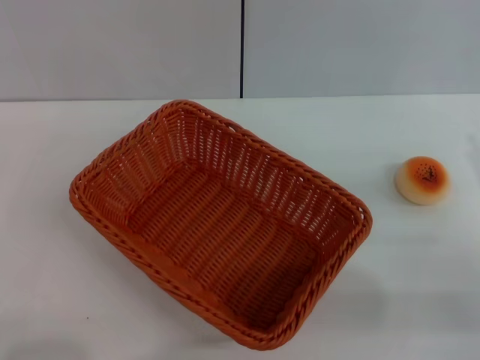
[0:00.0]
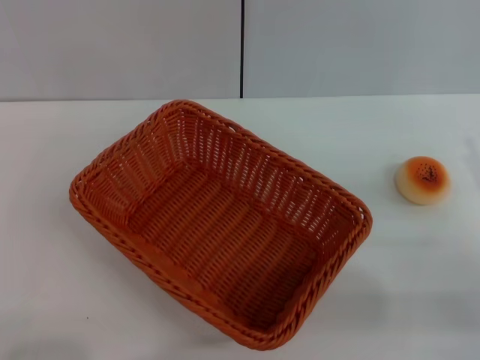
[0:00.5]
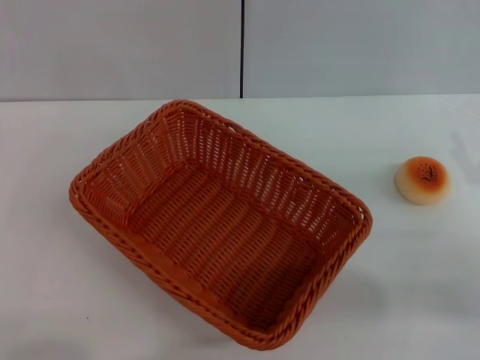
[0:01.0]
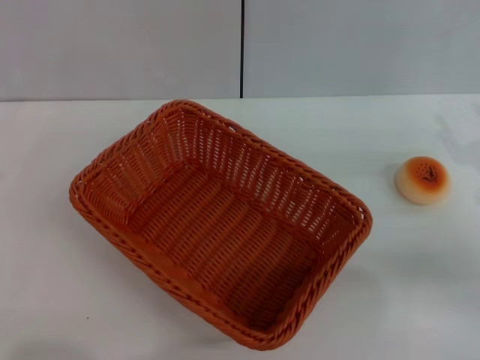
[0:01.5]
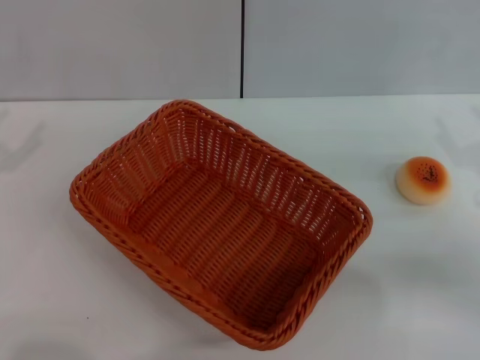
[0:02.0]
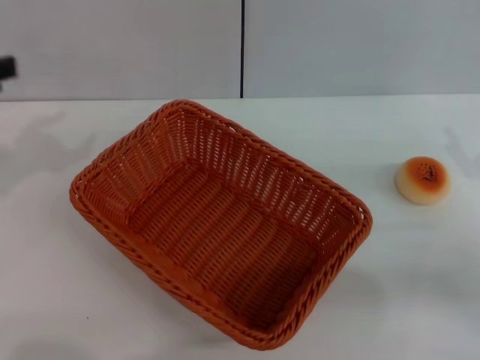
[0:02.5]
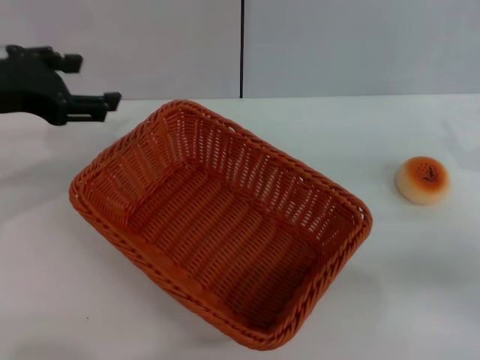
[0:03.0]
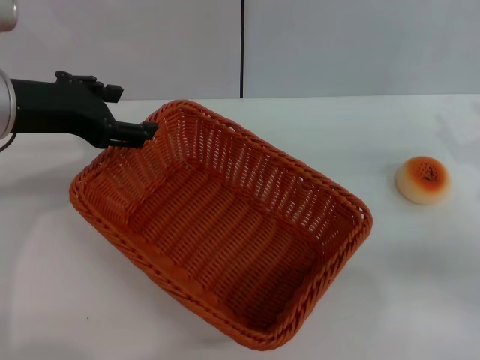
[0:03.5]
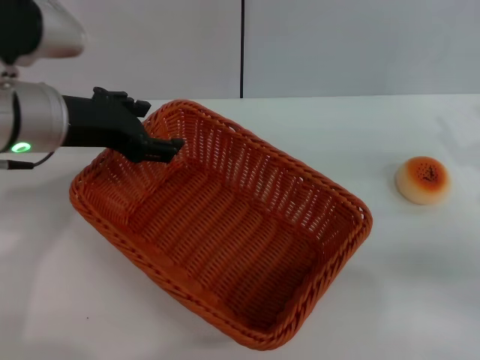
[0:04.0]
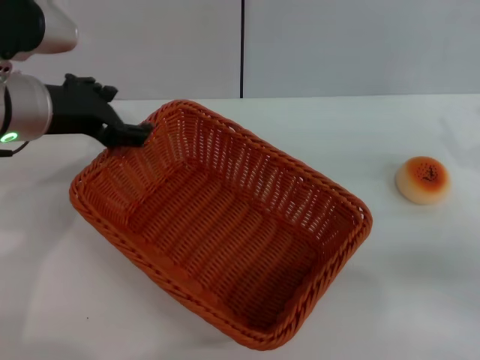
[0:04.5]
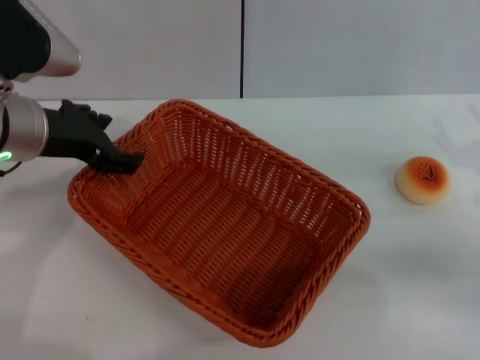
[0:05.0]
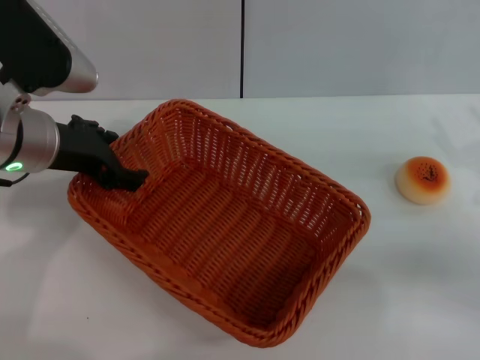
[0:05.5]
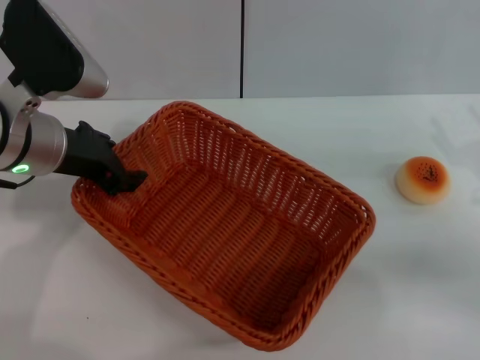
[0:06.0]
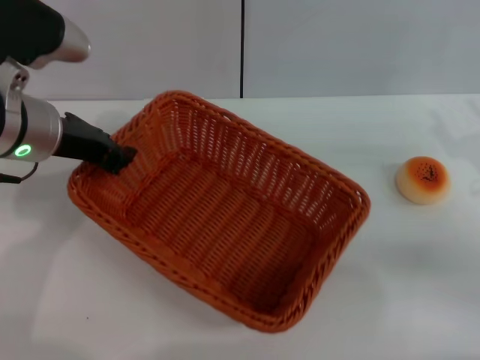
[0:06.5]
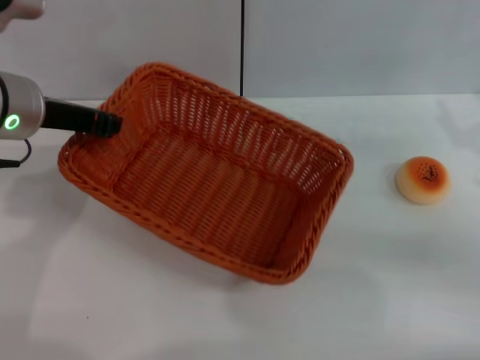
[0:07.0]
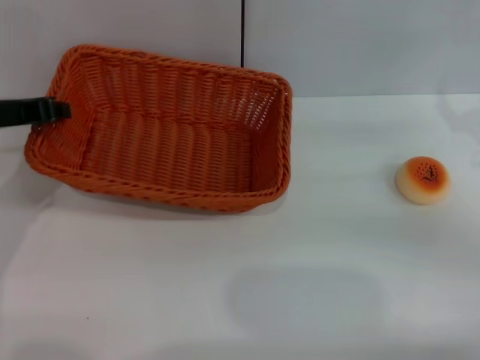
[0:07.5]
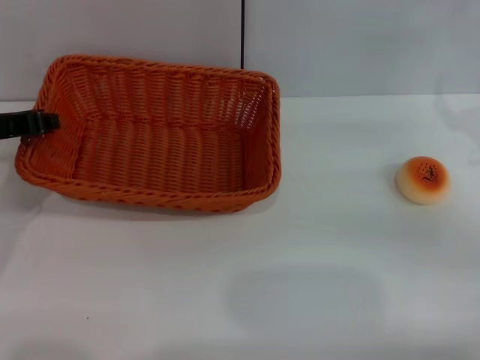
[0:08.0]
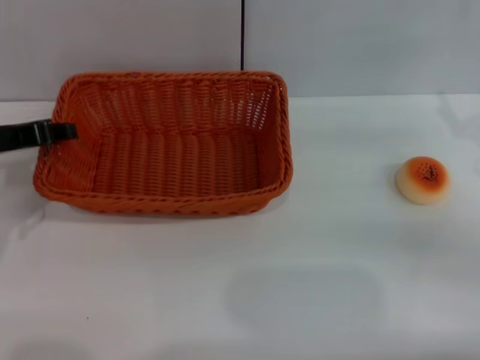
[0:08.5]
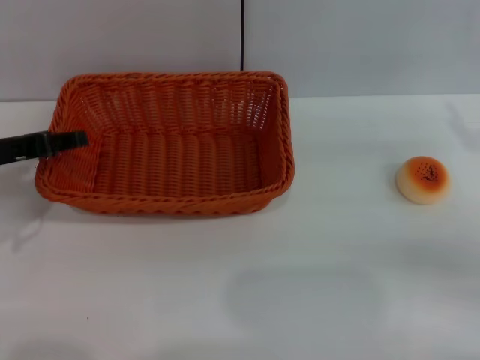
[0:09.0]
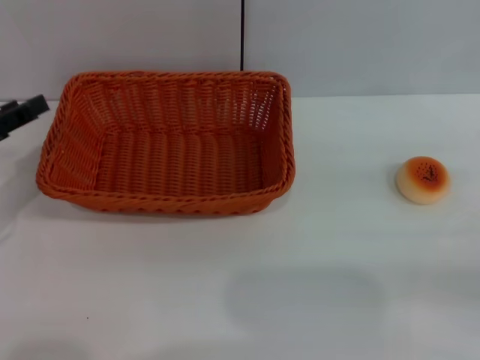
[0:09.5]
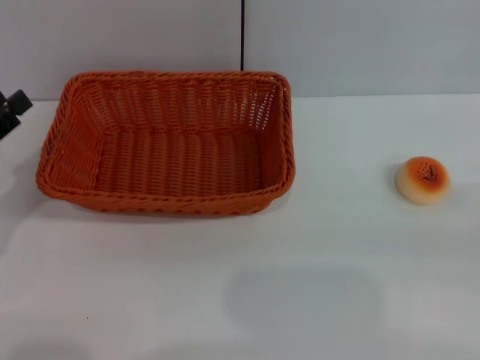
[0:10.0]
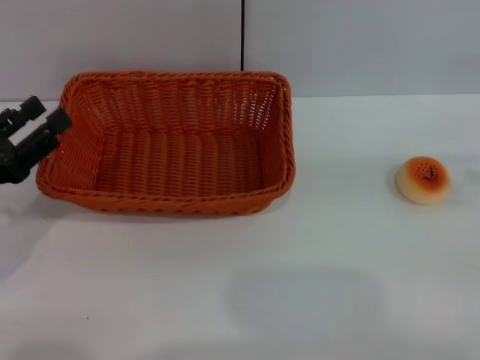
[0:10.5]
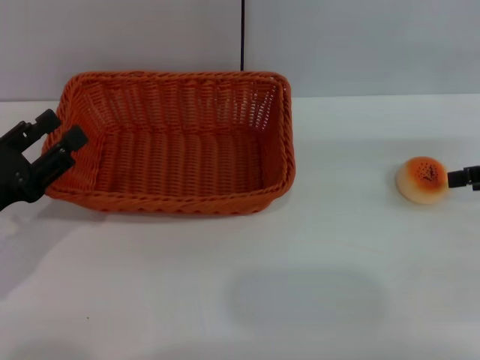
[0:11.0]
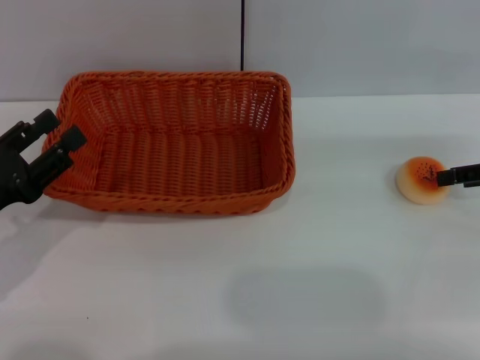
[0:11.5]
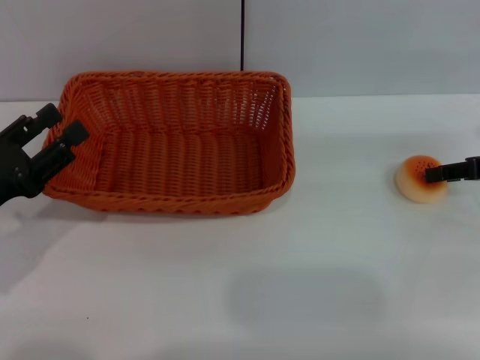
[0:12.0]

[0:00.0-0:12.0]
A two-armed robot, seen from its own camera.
Step, 0:00.0 to 0:09.0: Move the basket to the center of view with the left gripper.
0:02.0 to 0:04.0: The left gripper travels to the right and forward by roughly 20 cm.
0:04.0 to 0:06.0: The grippers stay close to where they were, moving slightly.
0:06.0 to 0:08.0: The right gripper changes place by approximately 5 cm; the left gripper is displaced to the left by approximately 10 cm, and closes.
0:08.0 to 0:10.0: The left gripper is displaced backward, to the left and downward by approximately 10 cm, and opens, while the right gripper is displaced to the right and backward by some 10 cm.
0:10.0 to 0:12.0: The right gripper is displaced forward and to the left by approximately 15 cm.

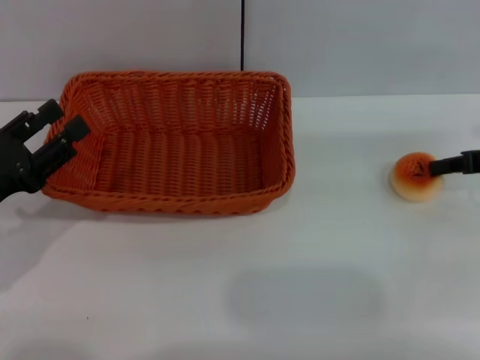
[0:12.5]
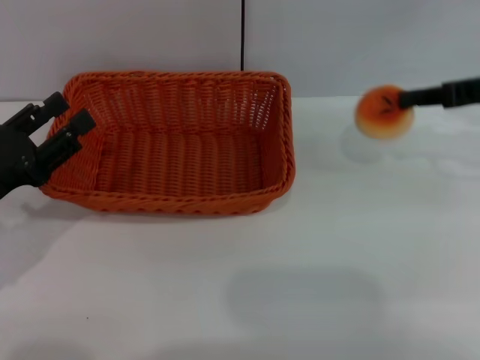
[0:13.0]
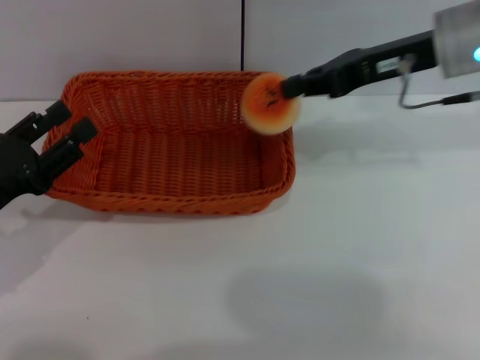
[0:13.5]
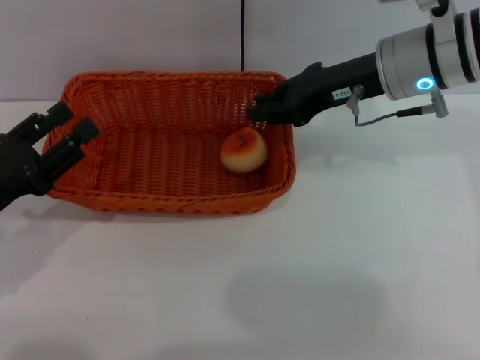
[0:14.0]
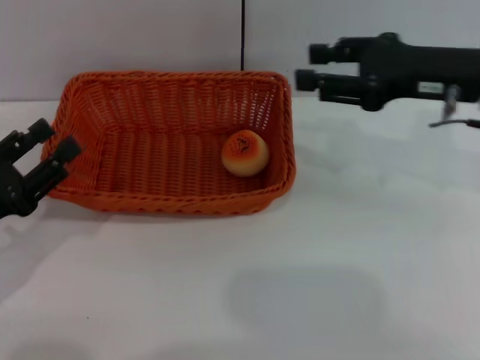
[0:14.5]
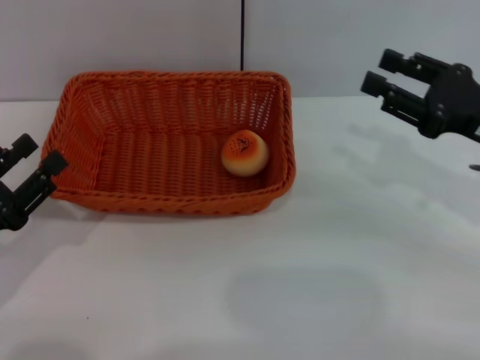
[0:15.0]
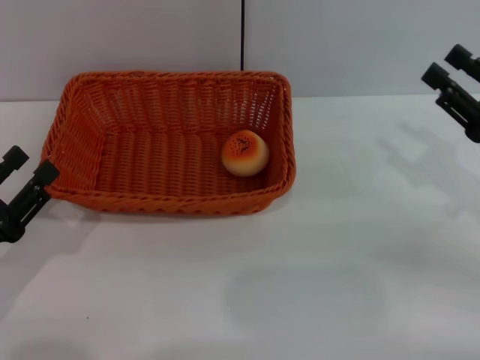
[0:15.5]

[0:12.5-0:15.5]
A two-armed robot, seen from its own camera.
Step, 0:13.5 to 0:14.0: Place the egg yolk pastry into the basket with the right gripper.
0:12.5 to 0:14.0: The right gripper moves to the left, some 20 cm.
0:14.0 to 0:15.5: The left gripper changes place by roughly 5 cm. The right gripper heads to the right, backward and downward, covering roughly 20 cm, and opens up.
